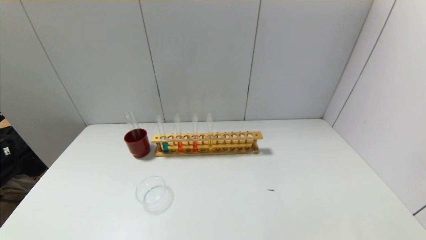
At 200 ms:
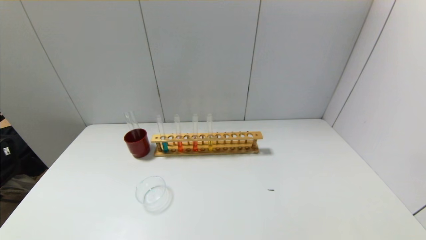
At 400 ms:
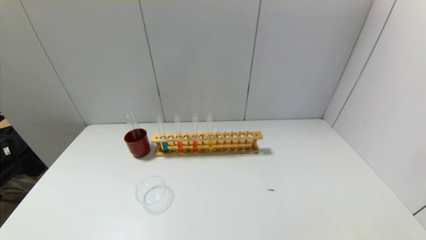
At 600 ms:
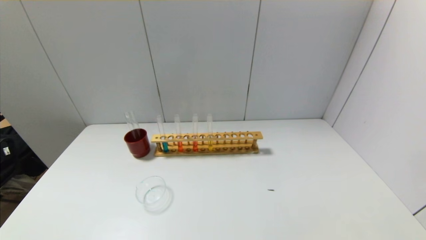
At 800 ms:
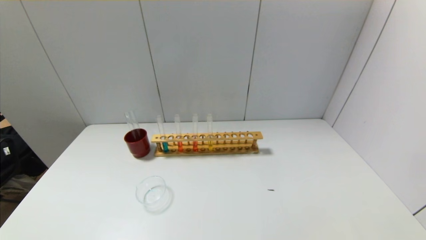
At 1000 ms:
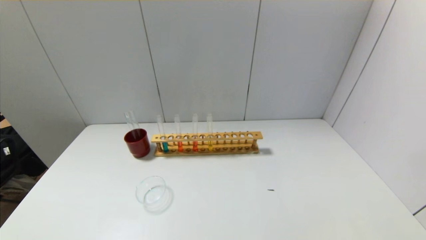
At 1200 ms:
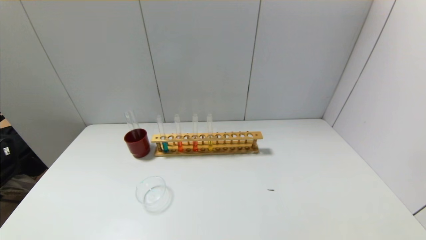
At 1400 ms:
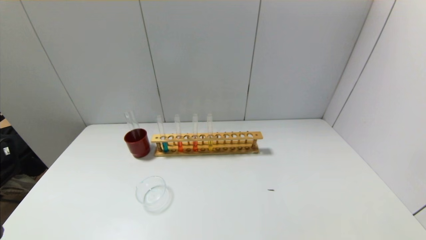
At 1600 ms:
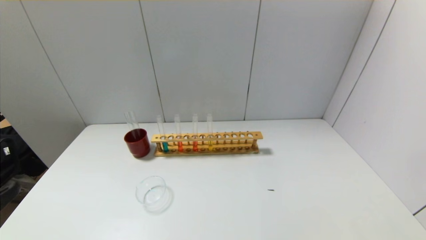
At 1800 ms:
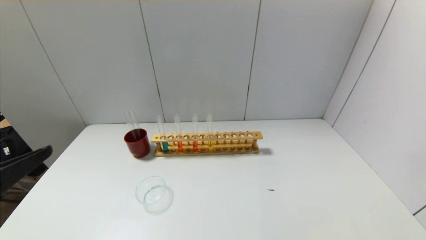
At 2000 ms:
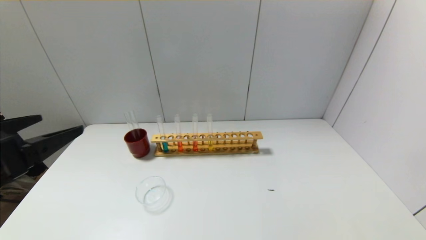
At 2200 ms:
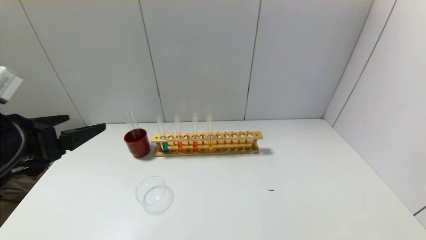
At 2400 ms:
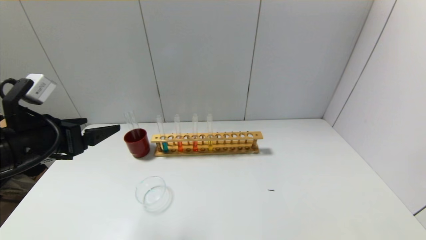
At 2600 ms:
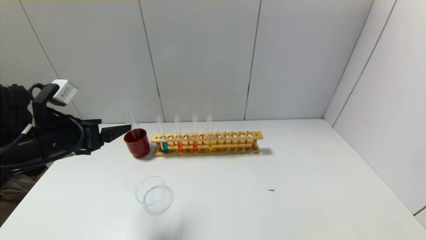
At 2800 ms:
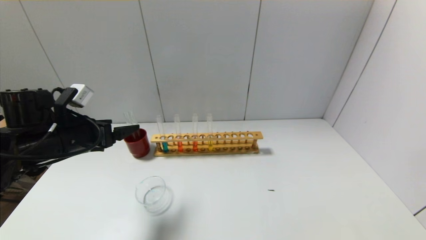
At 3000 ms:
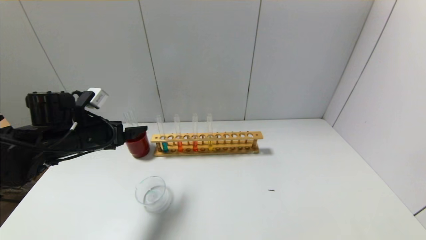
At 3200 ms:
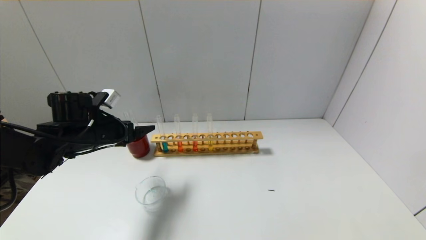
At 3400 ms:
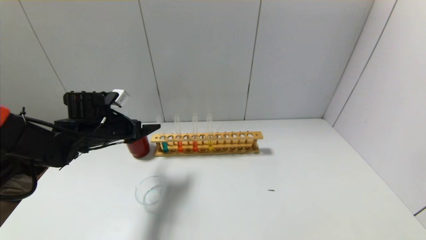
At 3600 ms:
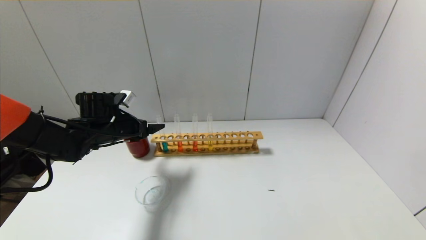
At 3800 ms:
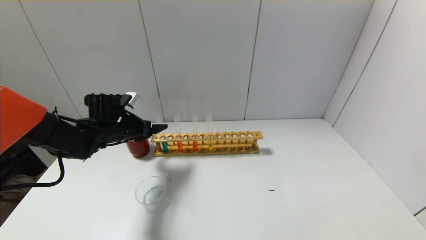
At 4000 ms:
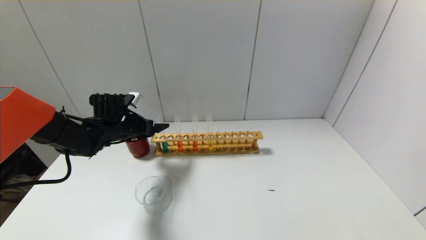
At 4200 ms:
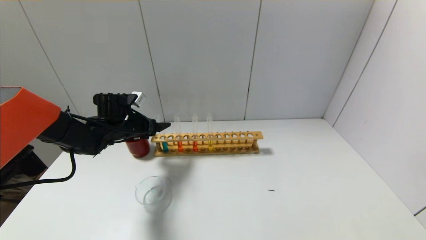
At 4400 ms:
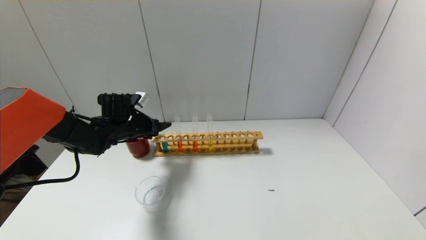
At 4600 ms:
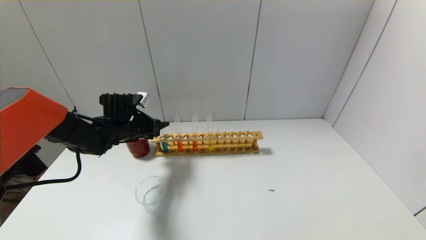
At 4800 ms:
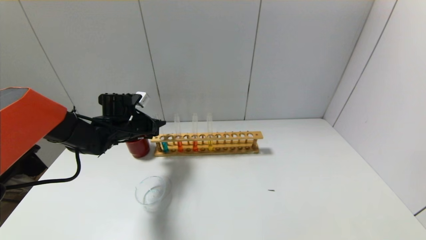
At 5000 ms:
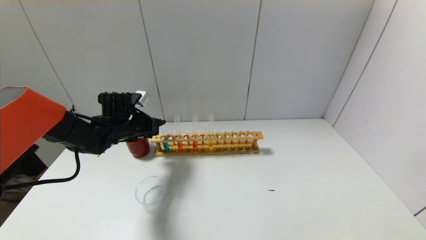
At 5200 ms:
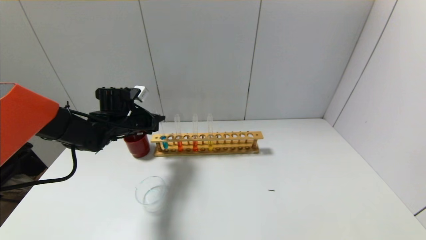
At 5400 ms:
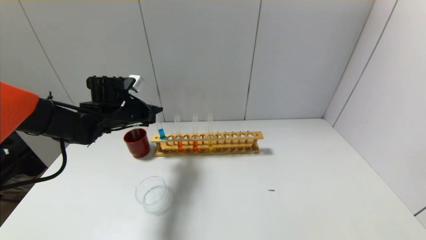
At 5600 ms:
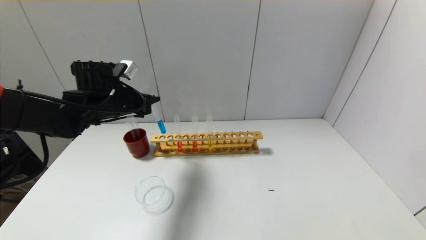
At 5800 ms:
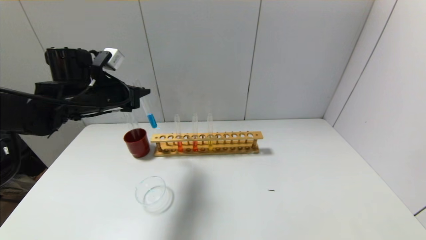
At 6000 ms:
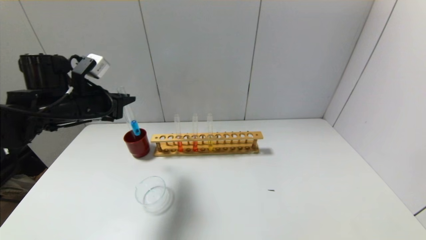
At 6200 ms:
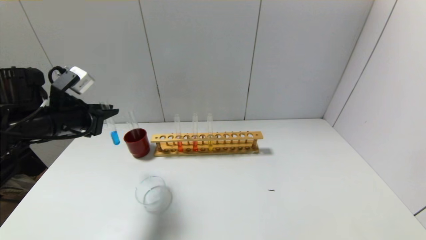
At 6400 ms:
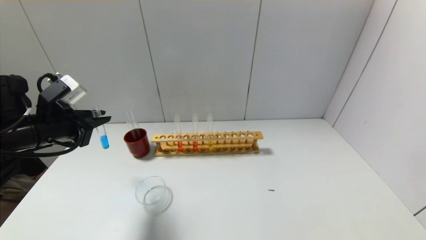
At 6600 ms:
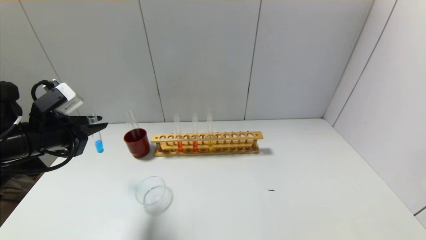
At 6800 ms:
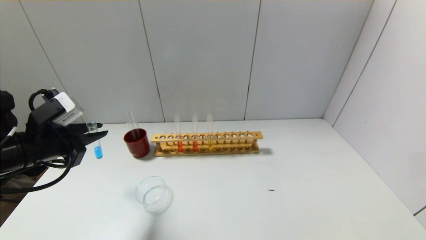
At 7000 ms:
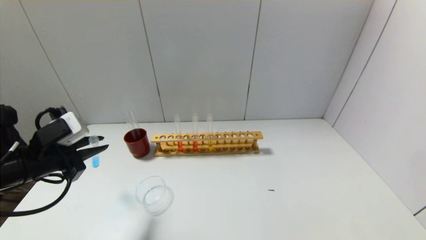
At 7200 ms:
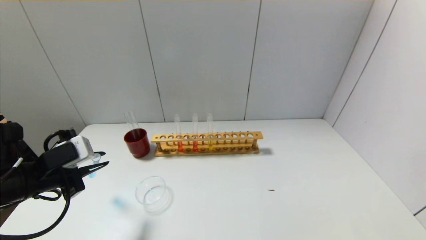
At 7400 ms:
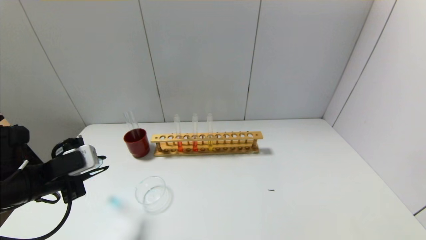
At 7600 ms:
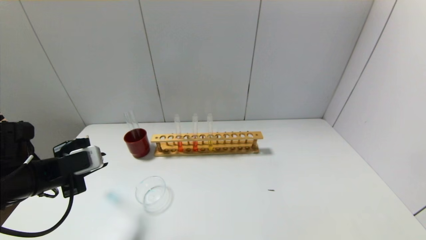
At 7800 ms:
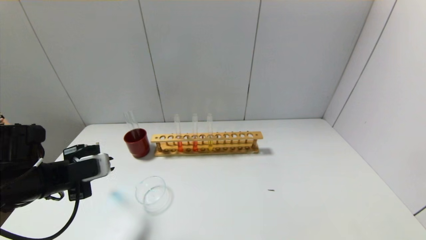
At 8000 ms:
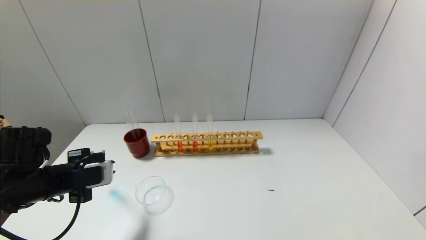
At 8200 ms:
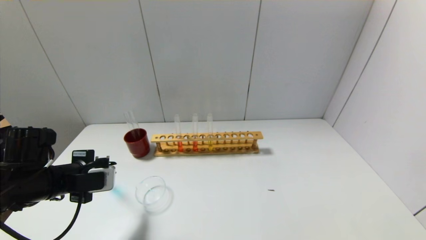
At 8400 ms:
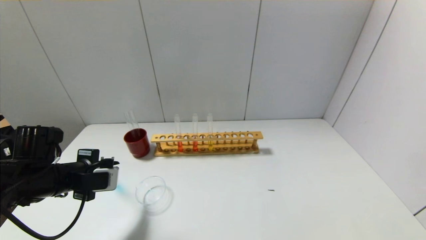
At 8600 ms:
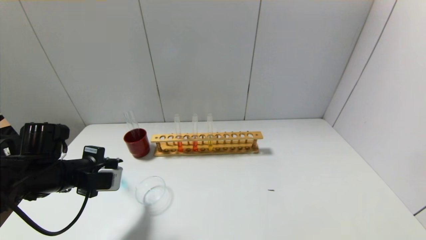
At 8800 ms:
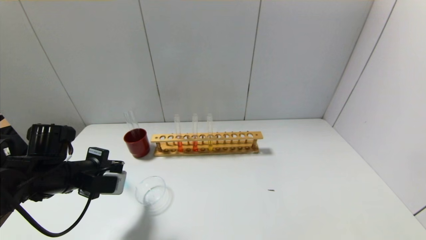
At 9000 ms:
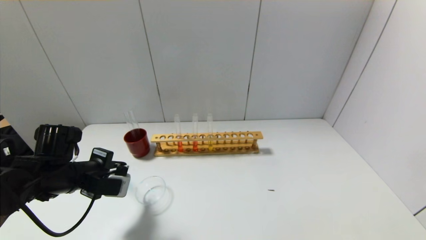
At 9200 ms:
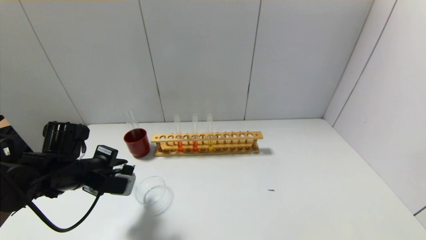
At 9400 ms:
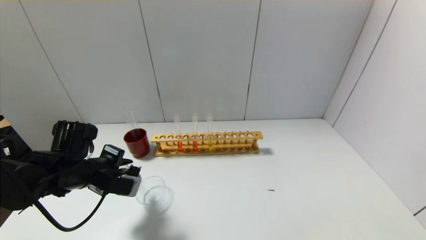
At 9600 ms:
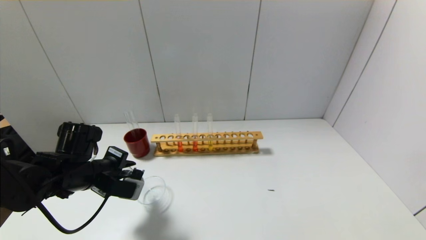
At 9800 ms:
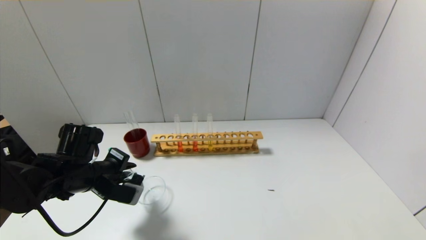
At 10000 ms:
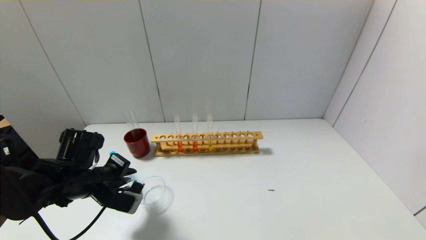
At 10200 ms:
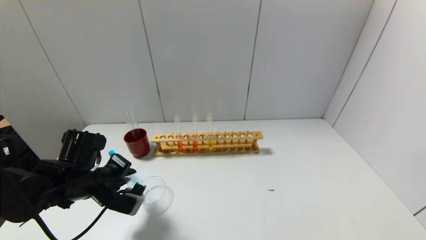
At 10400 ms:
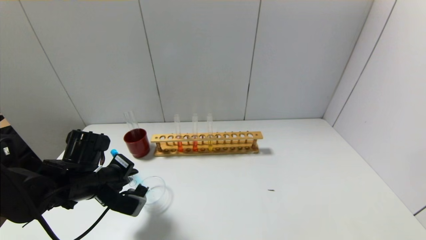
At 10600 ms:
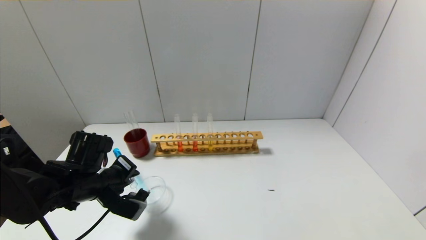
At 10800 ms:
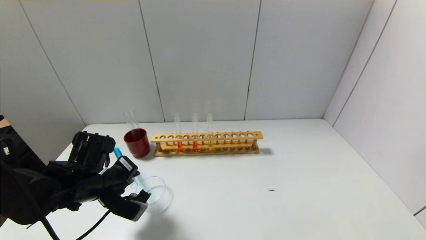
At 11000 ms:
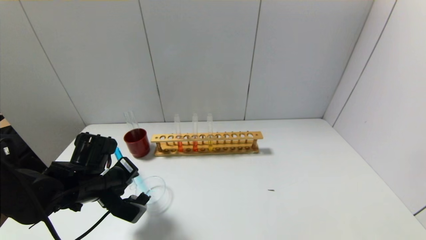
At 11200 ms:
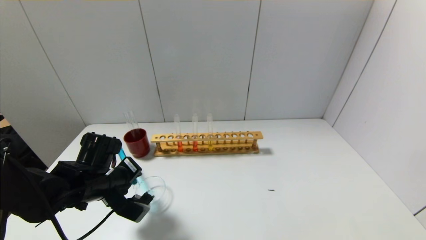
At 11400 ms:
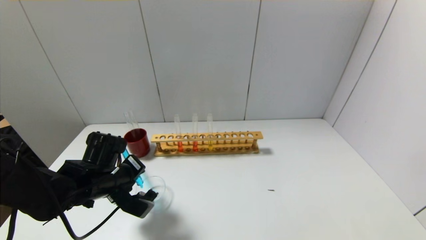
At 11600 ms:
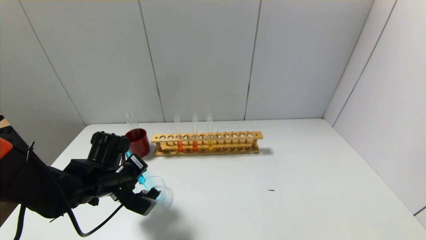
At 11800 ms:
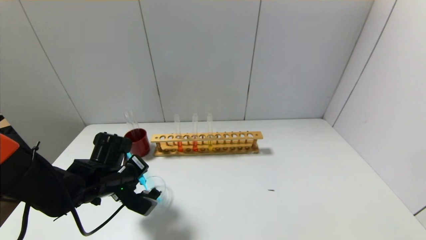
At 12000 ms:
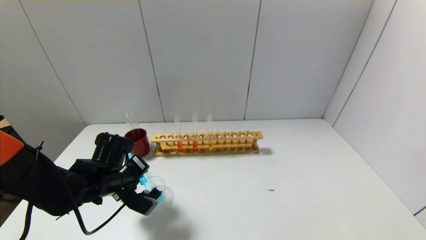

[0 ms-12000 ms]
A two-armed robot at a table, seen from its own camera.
Step, 0 ms to 4800 ms: Grasp the blue reagent with the left gripper.
1600 ms to 3000 ms: The left gripper is displaced forward by about 25 cm.
3000 ms to 4400 ms: The left gripper moves forward, approximately 10 cm.
4400 ms to 6000 ms: The left gripper heads upward and backward, covering roughly 15 cm, and closes up.
6000 ms to 7600 ms: The left gripper shifts approximately 15 cm backward and downward.
7600 ms to 9000 ms: The left gripper ends up approximately 5 cm from where it was.
9000 ms to 10400 ms: The grippers move only a little.
10400 ms to 12000 ms: The grippers move only a little.

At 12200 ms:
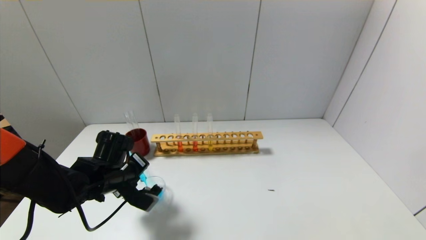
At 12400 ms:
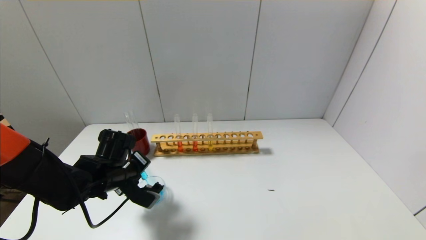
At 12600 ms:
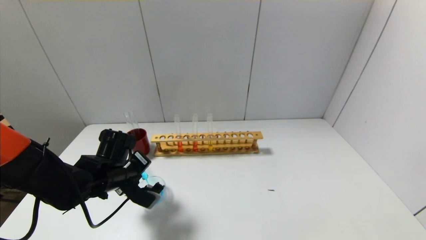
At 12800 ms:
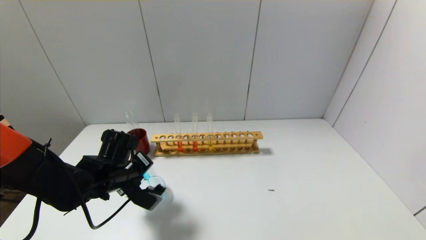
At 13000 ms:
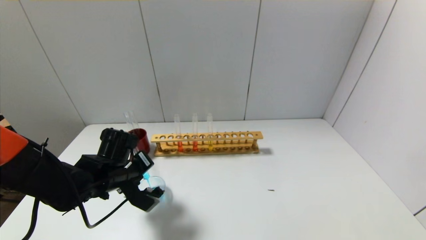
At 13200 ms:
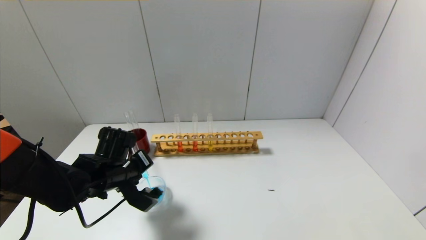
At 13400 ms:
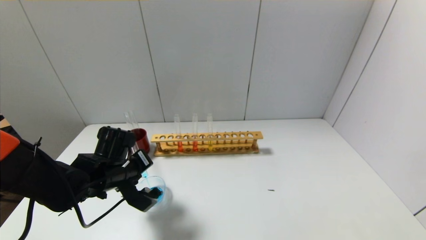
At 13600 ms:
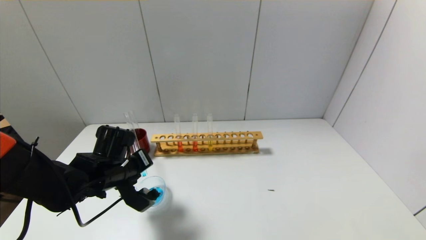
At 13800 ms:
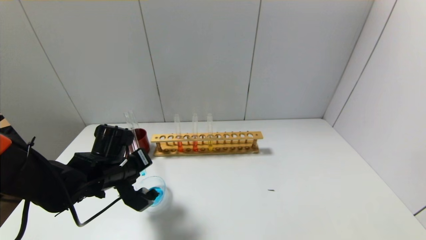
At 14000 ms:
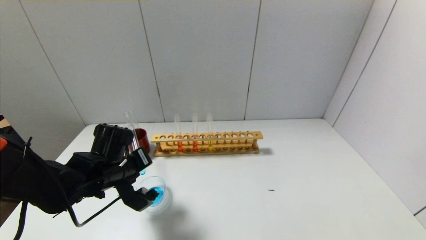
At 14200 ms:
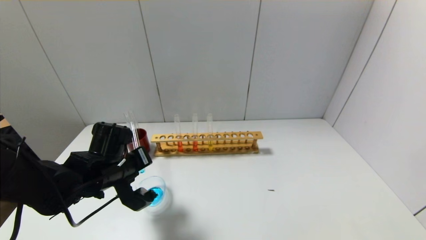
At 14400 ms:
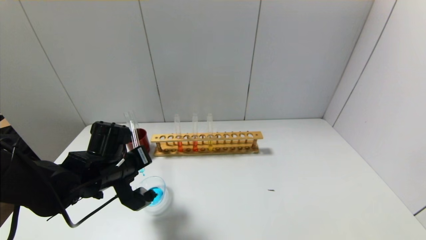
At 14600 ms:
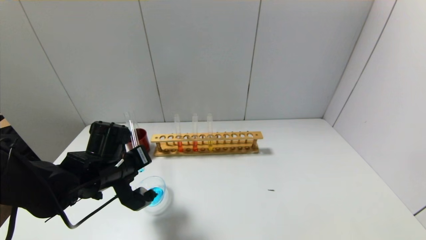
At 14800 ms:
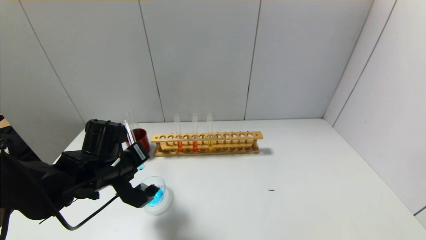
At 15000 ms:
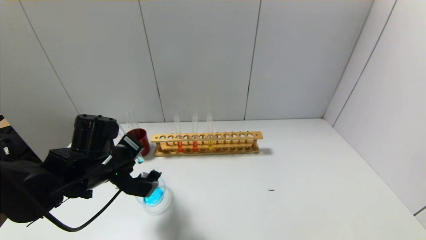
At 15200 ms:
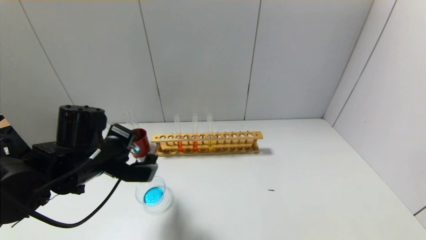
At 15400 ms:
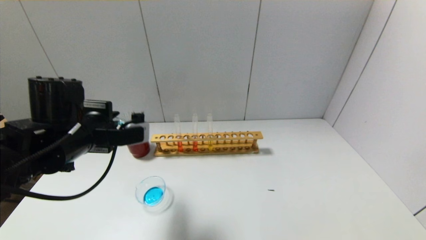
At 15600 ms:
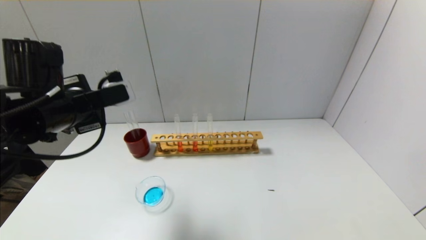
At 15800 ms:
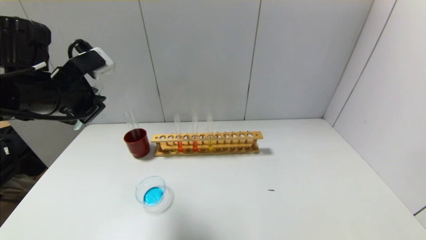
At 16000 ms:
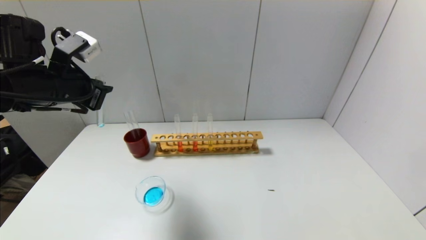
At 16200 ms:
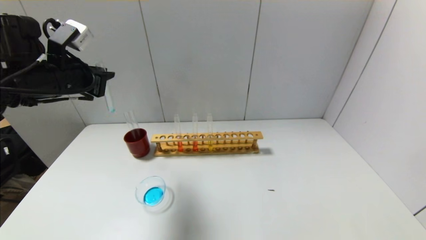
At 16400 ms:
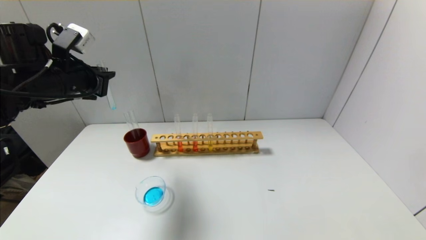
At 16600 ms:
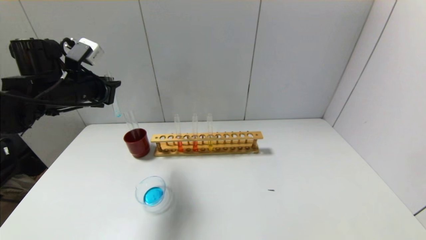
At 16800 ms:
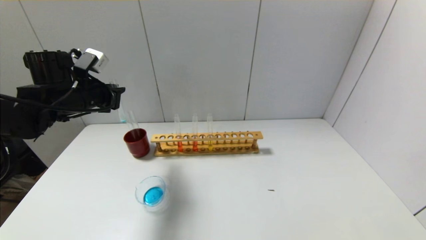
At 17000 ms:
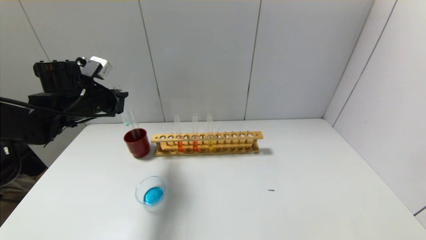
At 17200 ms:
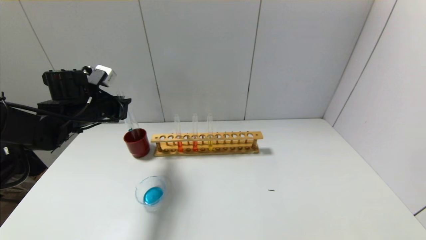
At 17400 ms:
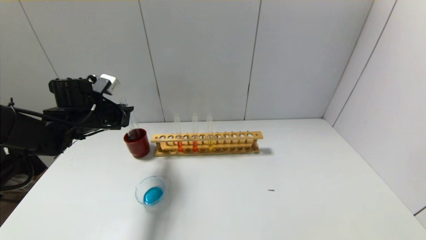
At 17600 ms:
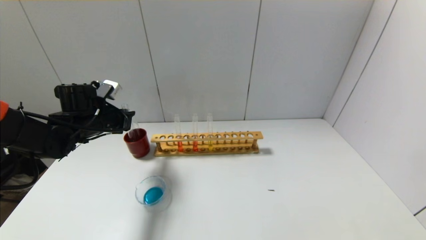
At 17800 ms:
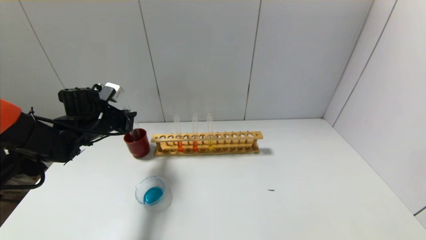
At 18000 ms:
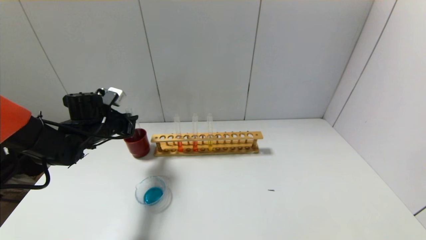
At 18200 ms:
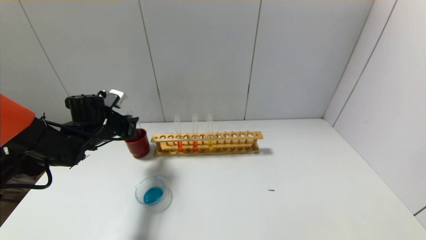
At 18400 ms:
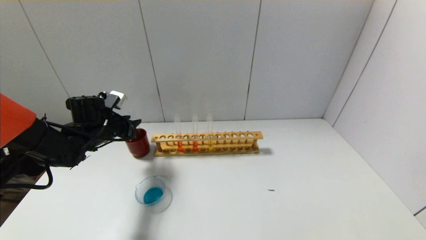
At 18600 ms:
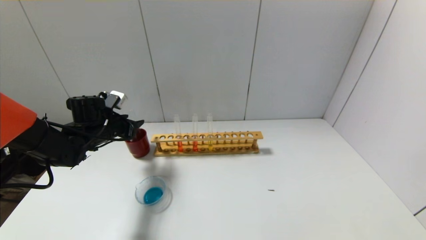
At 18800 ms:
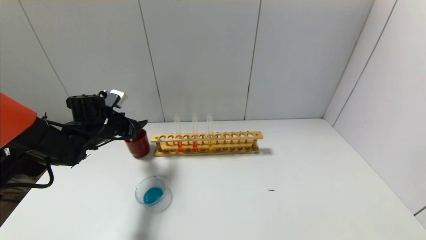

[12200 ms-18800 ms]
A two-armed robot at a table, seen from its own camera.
Step, 12200 ms to 15000 ms: Pour the blue reagent into the graduated cylinder with the left gripper.
Step, 15200 ms to 18400 ms: Place the test tube into the brown cup with the left gripper.
12200 ms to 13800 ms: There are only small adjustments of the grippers.
13800 ms to 15400 ms: The left gripper heads upward, covering about 10 cm.
15400 ms to 17200 ms: The left gripper travels forward and to the left by some 15 cm.
17200 ms to 18800 ms: The left gripper shifts approximately 5 cm downward, and opens up.
